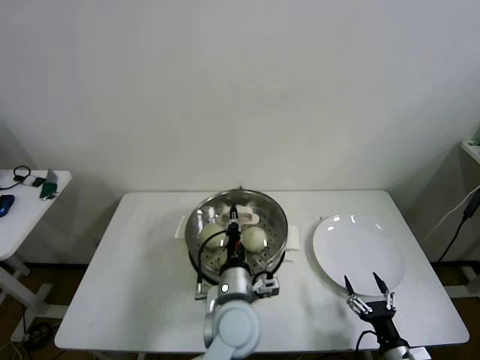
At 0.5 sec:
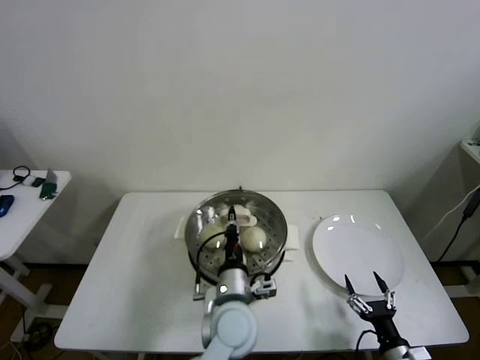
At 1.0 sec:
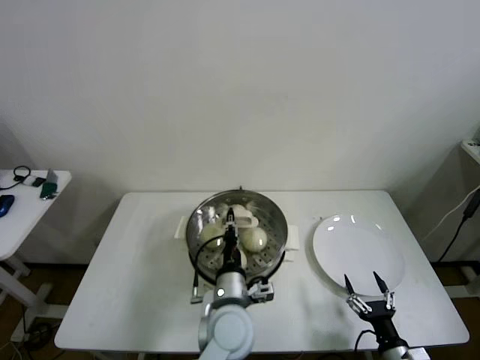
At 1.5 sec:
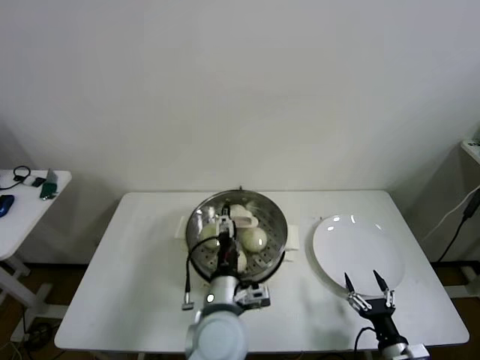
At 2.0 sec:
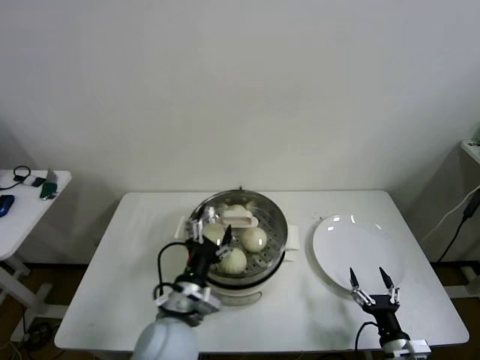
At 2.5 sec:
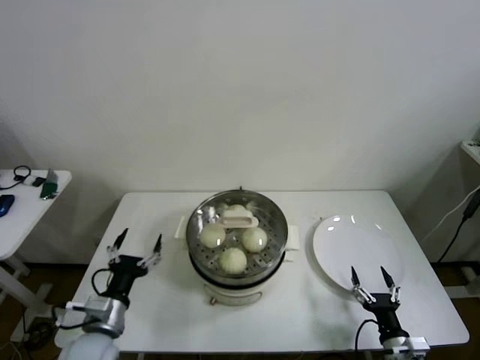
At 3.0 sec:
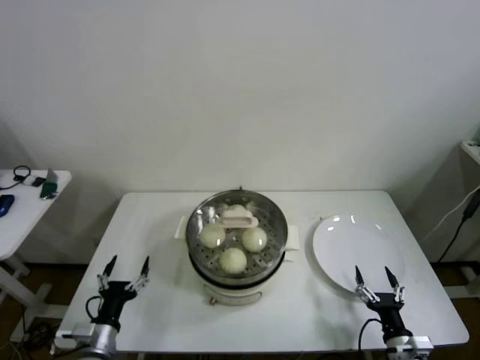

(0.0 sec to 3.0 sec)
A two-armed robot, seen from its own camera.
0.0 sec - 1.5 sec: The left gripper opens.
1.5 sec - 3.0 sec: The left gripper shifts about 30 cm to the left.

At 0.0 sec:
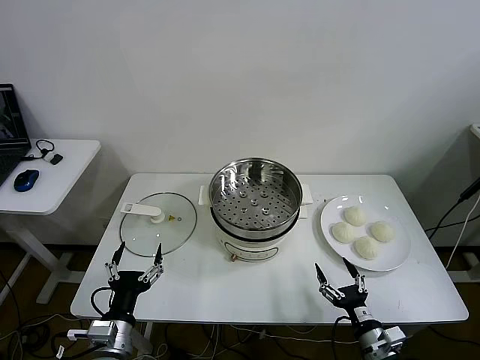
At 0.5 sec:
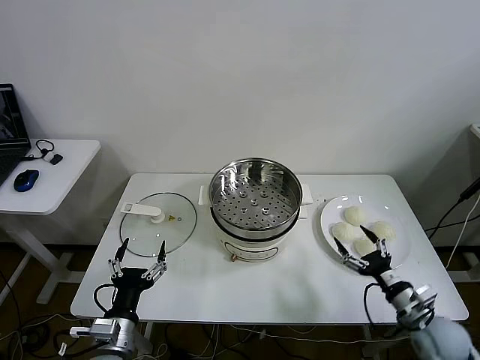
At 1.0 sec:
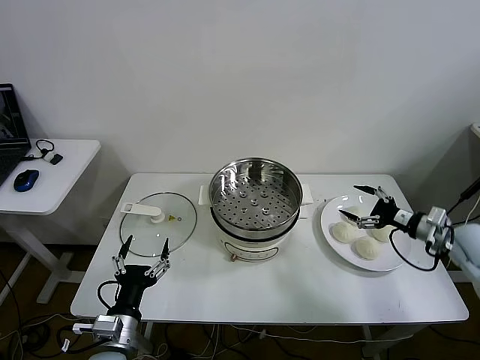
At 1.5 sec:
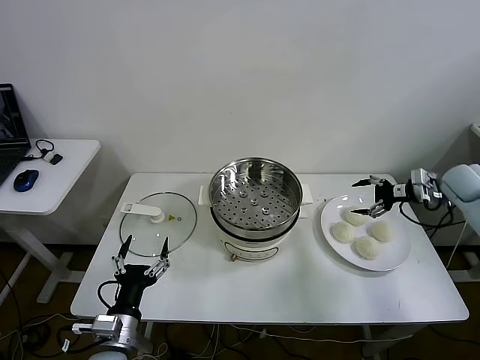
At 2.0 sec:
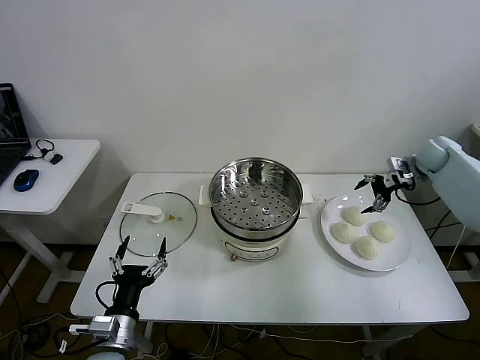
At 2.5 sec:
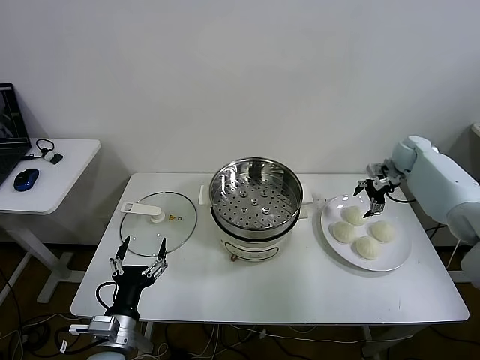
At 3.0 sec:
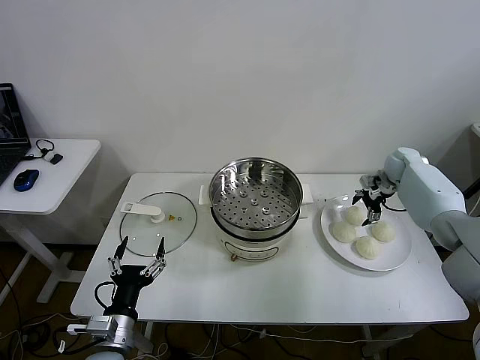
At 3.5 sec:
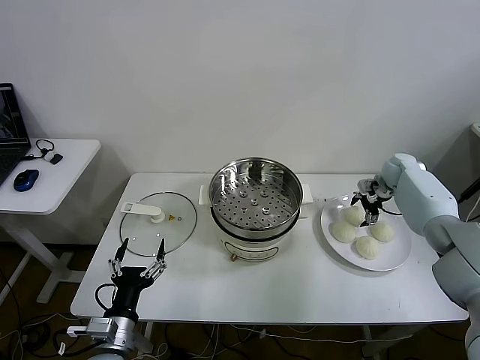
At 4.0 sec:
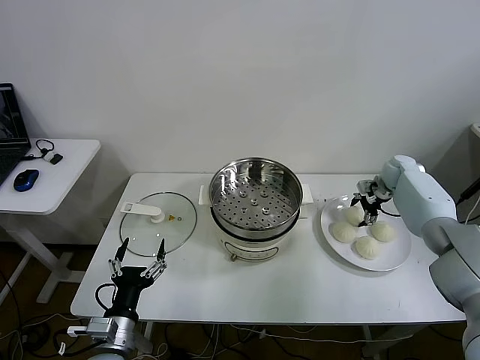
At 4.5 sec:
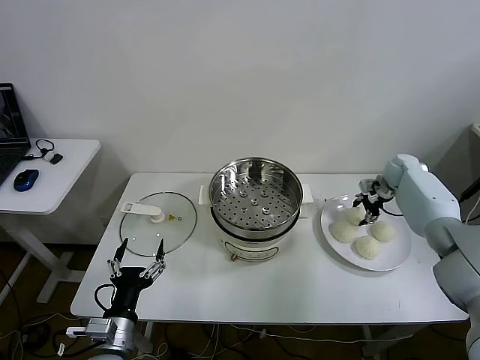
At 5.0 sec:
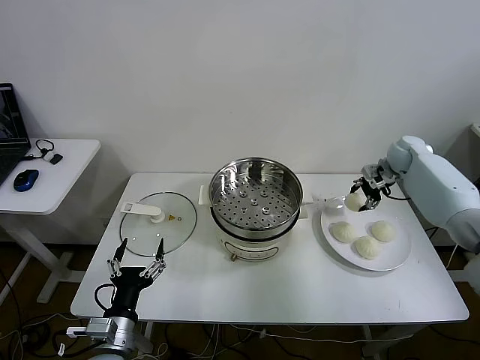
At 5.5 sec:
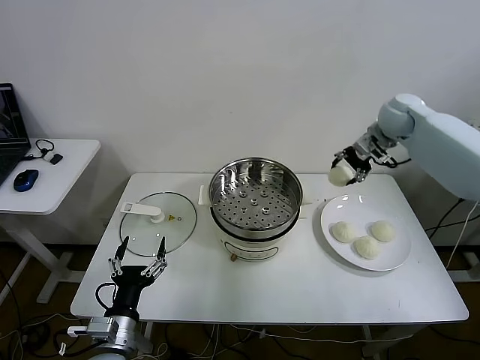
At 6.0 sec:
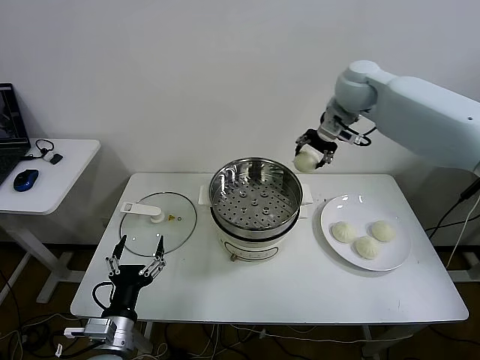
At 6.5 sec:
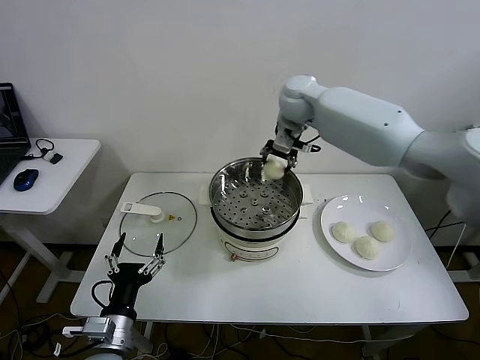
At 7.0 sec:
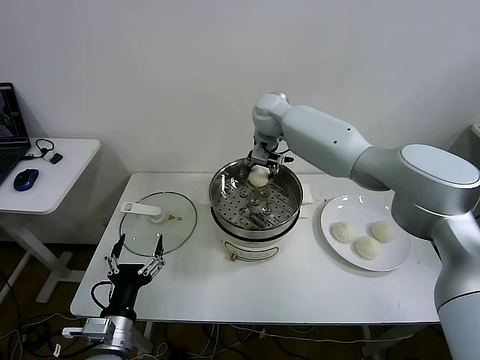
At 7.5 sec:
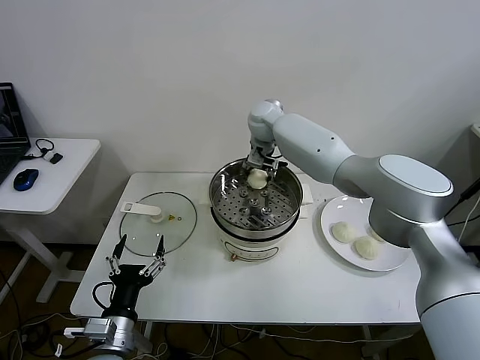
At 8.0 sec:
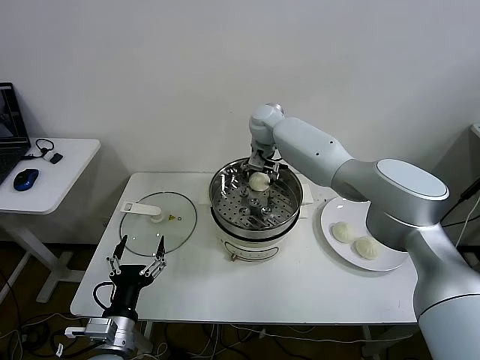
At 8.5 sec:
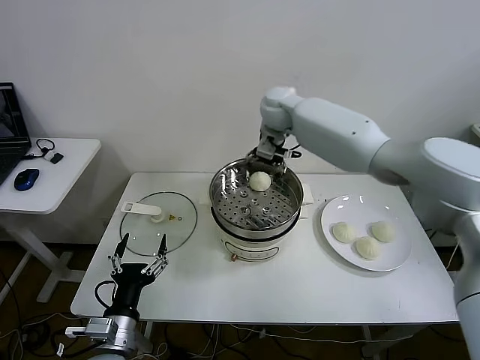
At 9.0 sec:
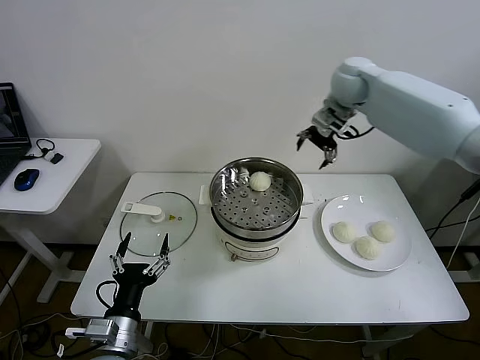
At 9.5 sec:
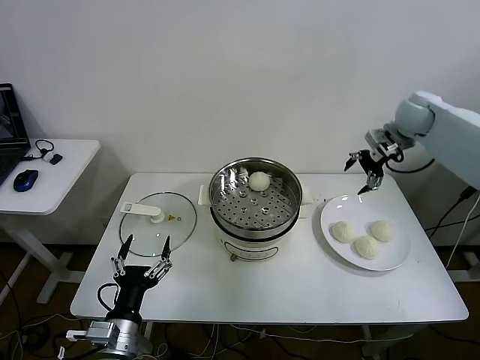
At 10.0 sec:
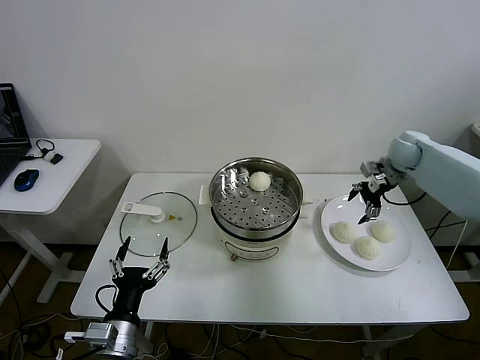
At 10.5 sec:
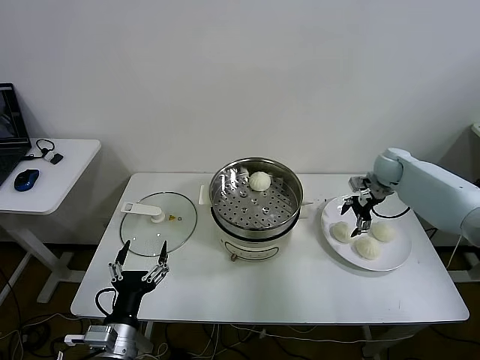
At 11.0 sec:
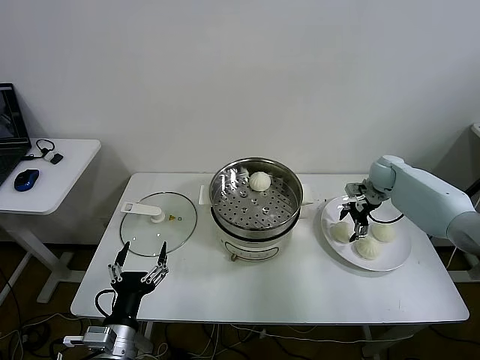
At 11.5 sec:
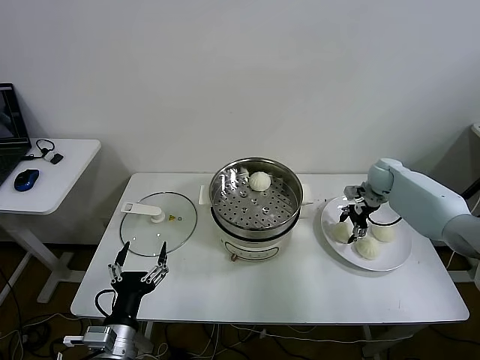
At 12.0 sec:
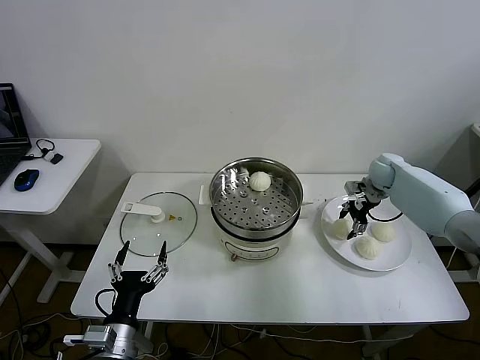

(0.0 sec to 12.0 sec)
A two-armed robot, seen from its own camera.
Step, 0.0 sec - 4.0 sec: Grasp the baozi in the plate with right gripper.
Step, 4.5 sec - 8.0 sec: Place the baozi on the steamer with right gripper.
Step, 8.5 sec - 12.0 sec: Grasp the baozi in the plate with right gripper.
2.0 sec - 4.0 sec: The right gripper travels downward by approximately 10 cm, and closes up.
4.0 sec - 6.0 sec: The right gripper travels upward and to the left by approximately 35 cm, and closes its fingers.
6.0 sec - 8.0 sec: The right gripper moves to the left and downward, approximately 20 cm, and opens its fingers.
8.0 sec - 10.0 sec: The right gripper shifts some 35 cm to the right.
10.0 sec - 12.0 sec: The right gripper shifts approximately 5 cm downward, and closes.

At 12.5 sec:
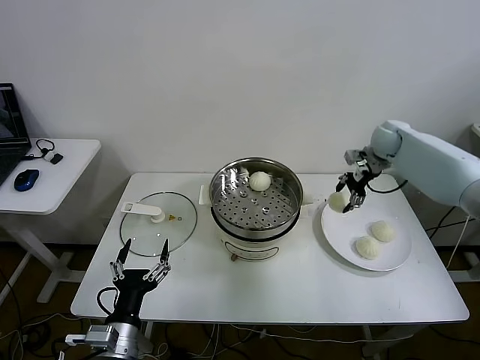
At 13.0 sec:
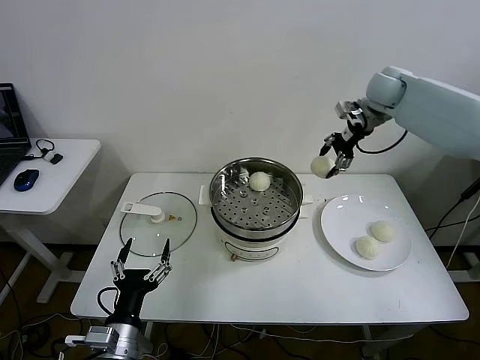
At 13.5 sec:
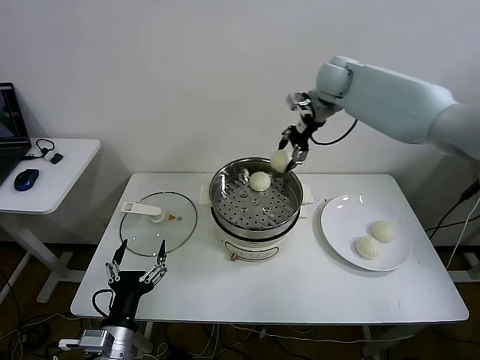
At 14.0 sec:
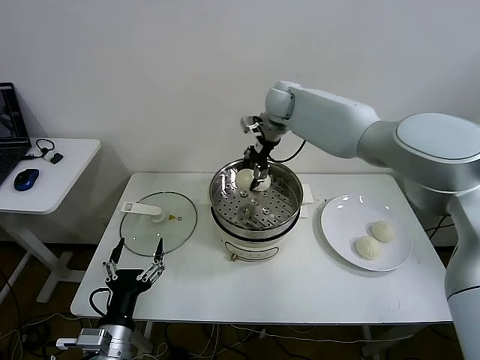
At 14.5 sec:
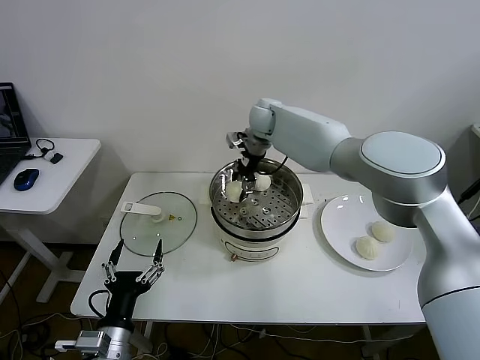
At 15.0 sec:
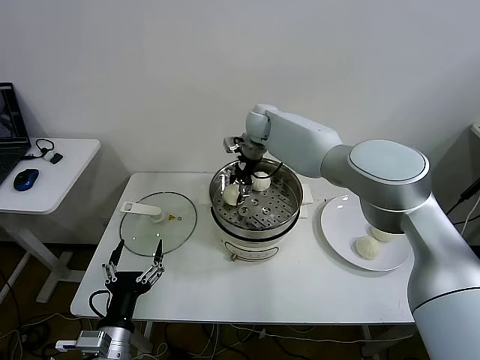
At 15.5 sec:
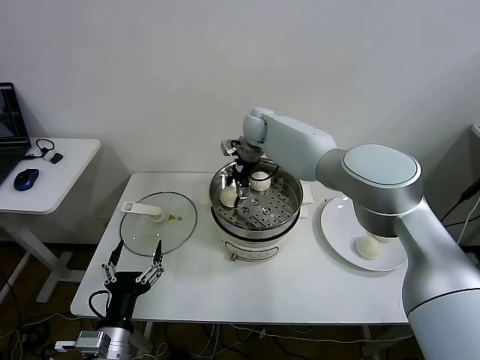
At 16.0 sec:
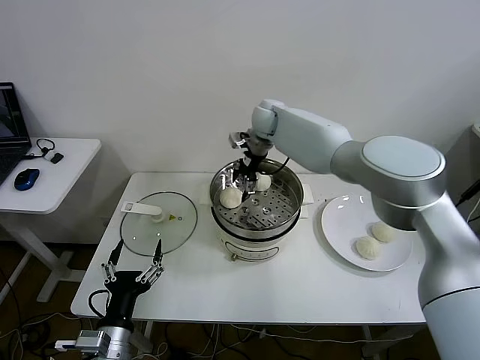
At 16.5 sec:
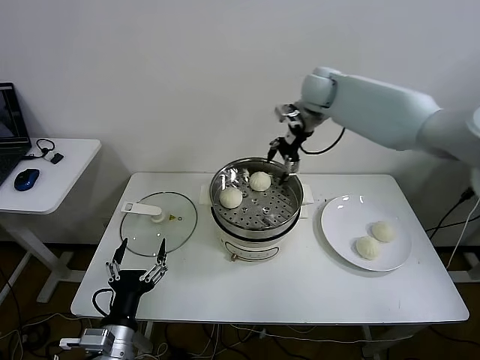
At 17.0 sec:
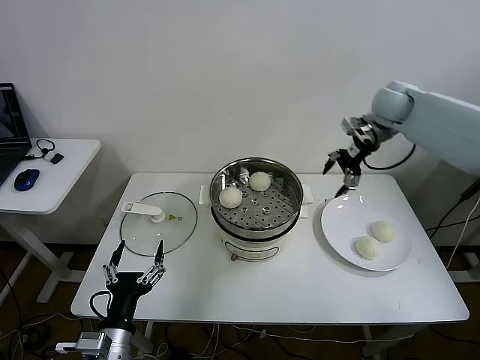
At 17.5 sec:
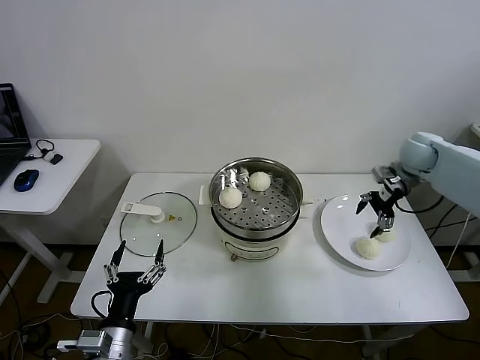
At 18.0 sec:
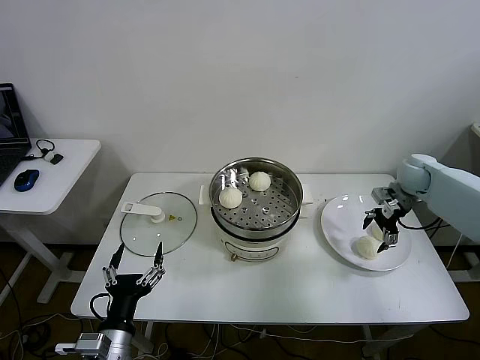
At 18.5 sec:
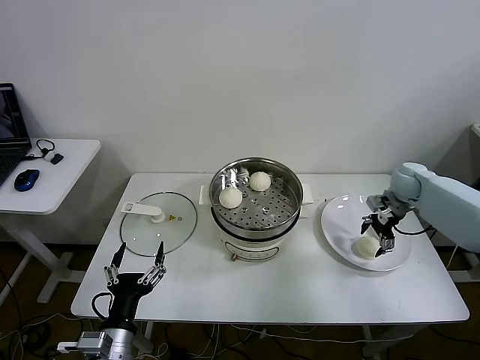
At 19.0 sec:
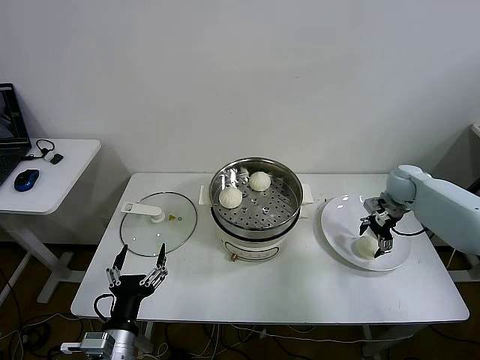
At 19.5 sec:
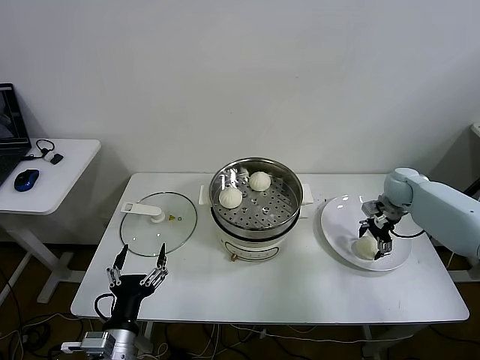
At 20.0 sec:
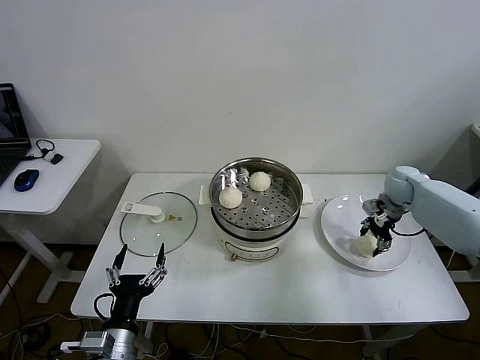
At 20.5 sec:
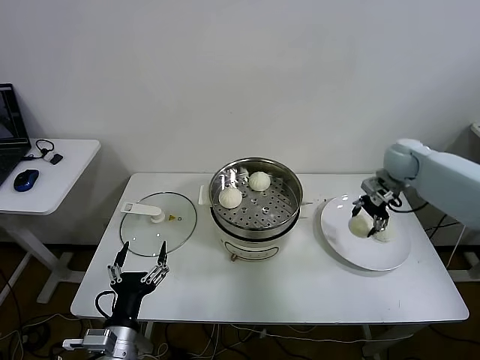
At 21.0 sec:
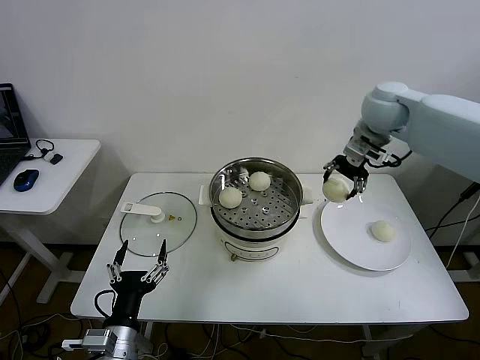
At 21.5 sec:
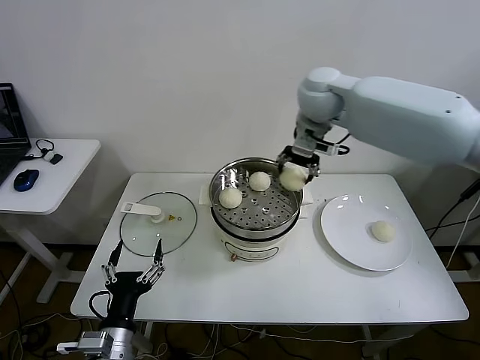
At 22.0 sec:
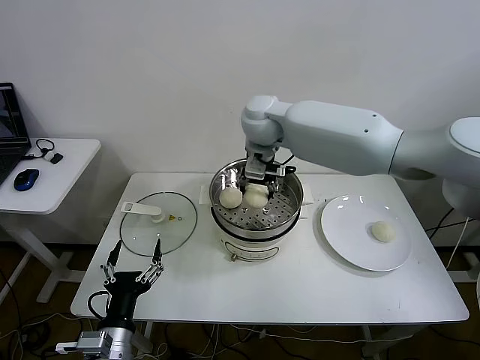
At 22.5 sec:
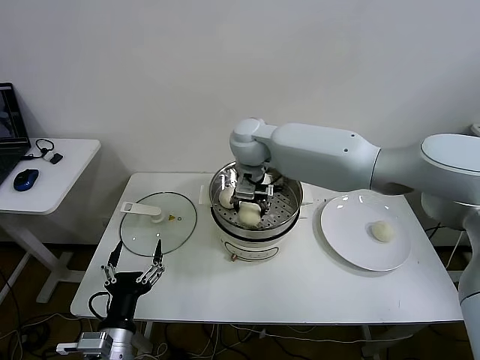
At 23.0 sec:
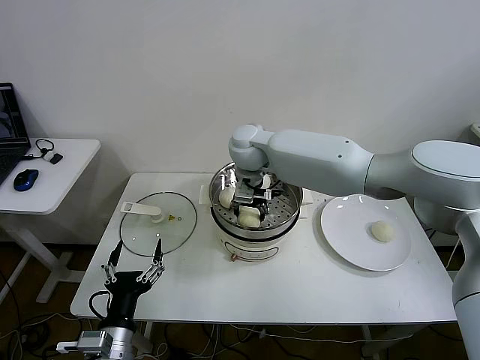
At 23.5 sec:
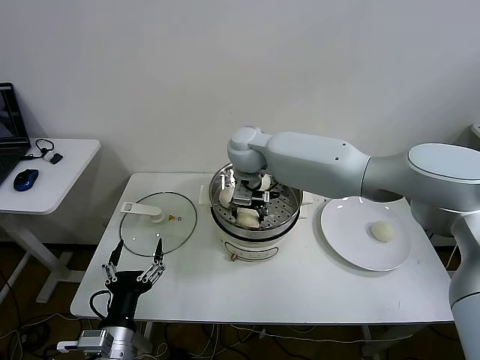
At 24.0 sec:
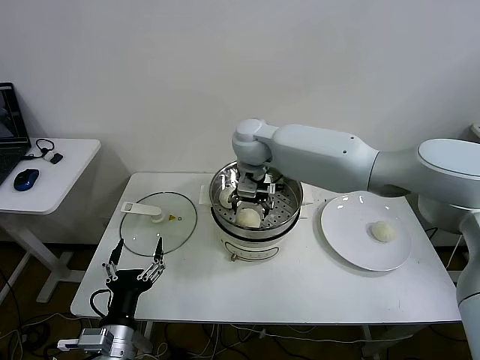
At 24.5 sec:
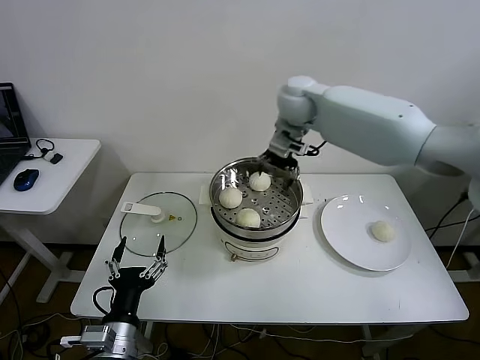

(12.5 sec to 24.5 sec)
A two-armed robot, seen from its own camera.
Step, 12.5 sec - 16.0 sec: Place the baozi on the steamer with right gripper.
Step, 16.5 sec - 19.5 sec: Grasp the baozi in the plate with right gripper.
Step, 20.5 sec - 24.0 sec: Place the baozi on the steamer with right gripper.
12.5 sec - 14.5 sec: The right gripper goes some 30 cm to the left.
14.5 sec - 16.5 sec: The right gripper travels to the right and upward by approximately 15 cm, and opens.
16.5 sec - 18.5 sec: The right gripper goes some 35 cm to the right and downward.
18.5 sec - 20.5 sec: The right gripper is displaced upward by approximately 10 cm, and closes.
20.5 sec - 22.5 sec: The right gripper moves to the left, about 40 cm.
22.5 sec - 24.5 sec: The right gripper is displaced to the right, upward and forward by some 15 cm, and opens its fingers.
